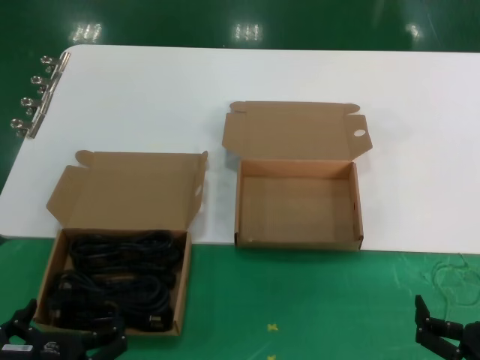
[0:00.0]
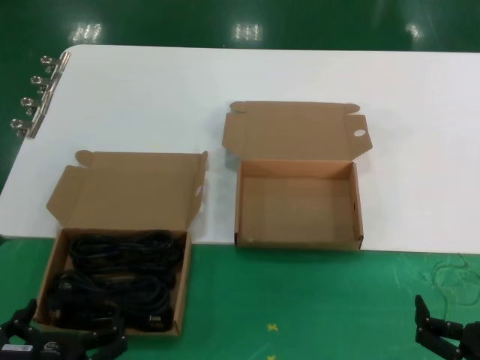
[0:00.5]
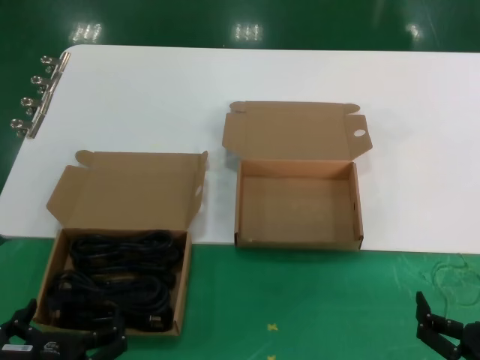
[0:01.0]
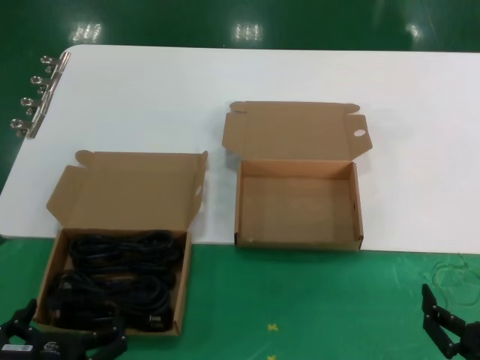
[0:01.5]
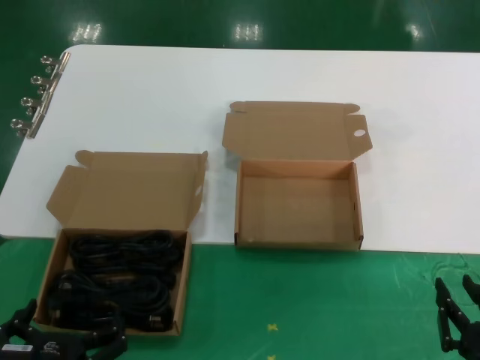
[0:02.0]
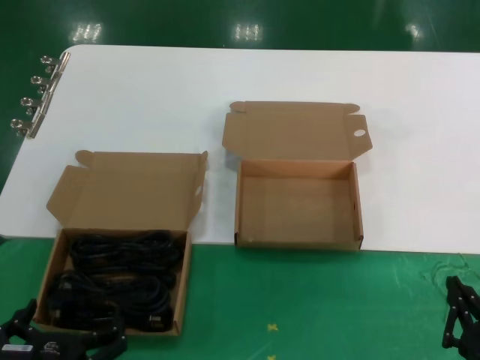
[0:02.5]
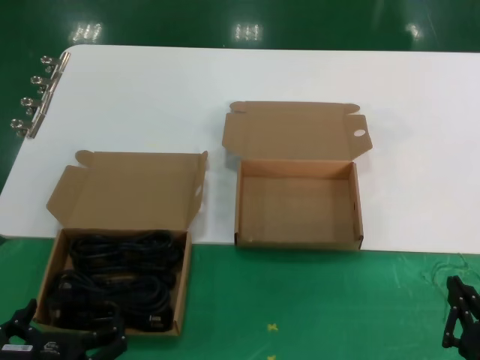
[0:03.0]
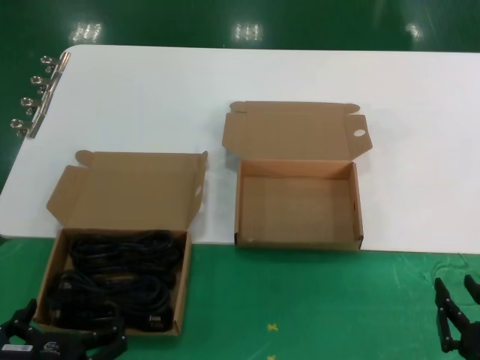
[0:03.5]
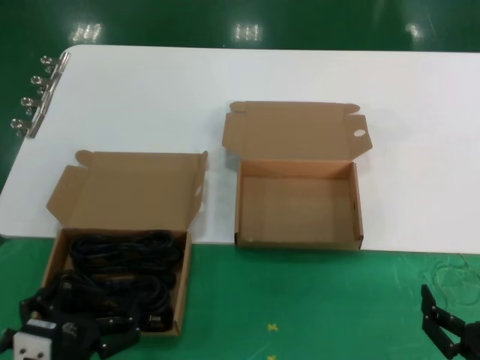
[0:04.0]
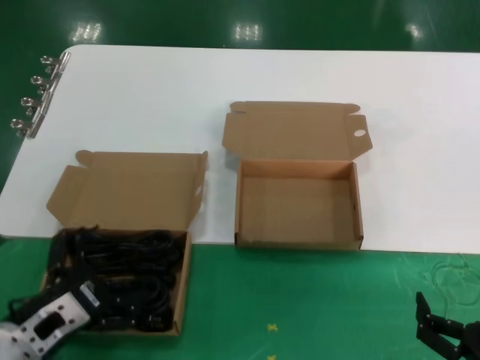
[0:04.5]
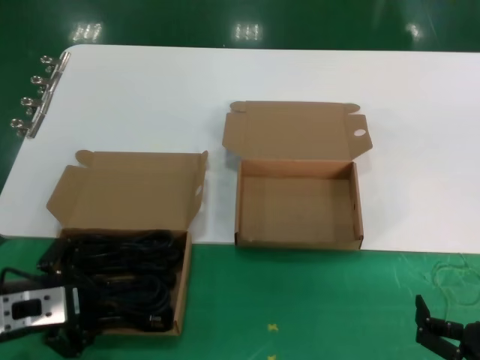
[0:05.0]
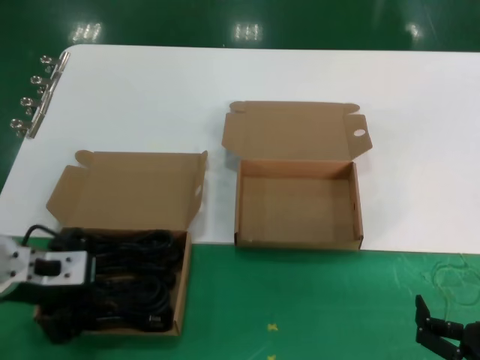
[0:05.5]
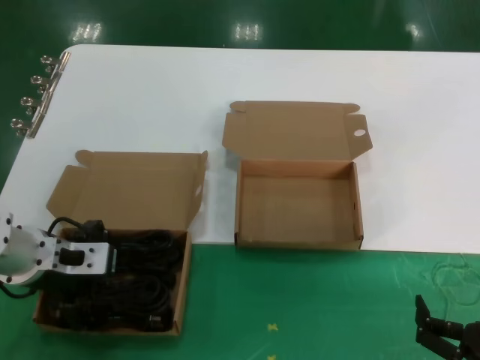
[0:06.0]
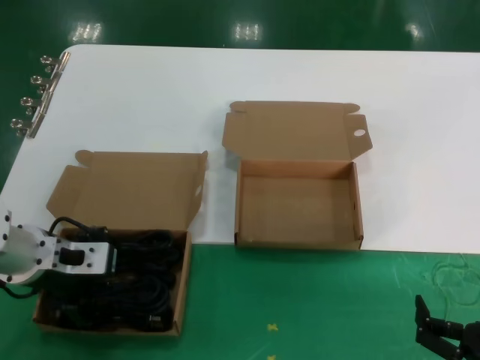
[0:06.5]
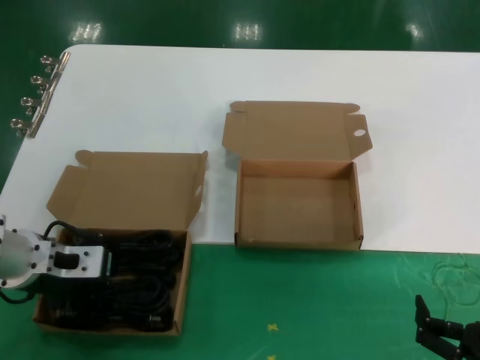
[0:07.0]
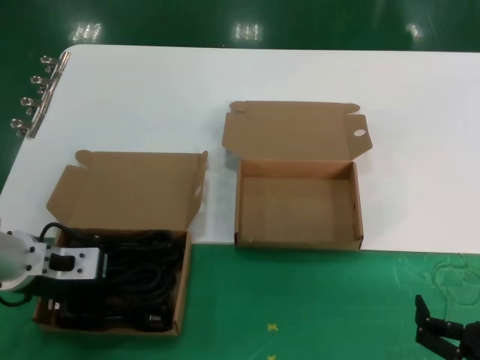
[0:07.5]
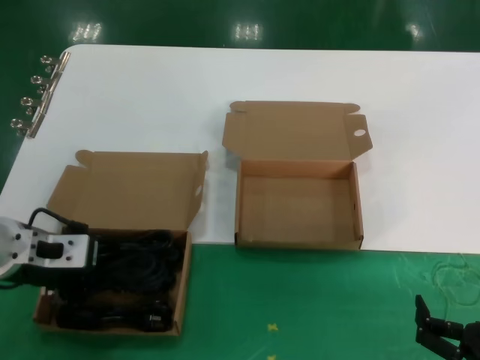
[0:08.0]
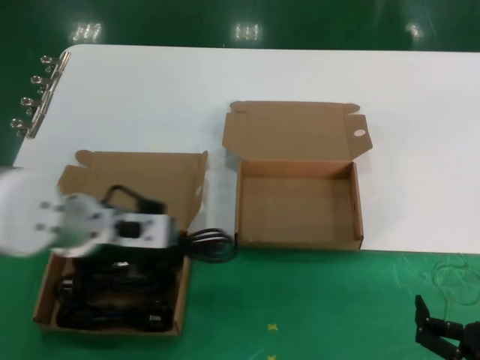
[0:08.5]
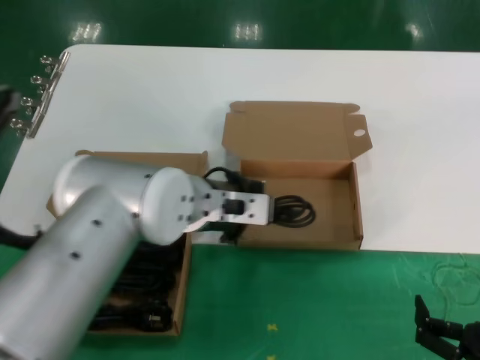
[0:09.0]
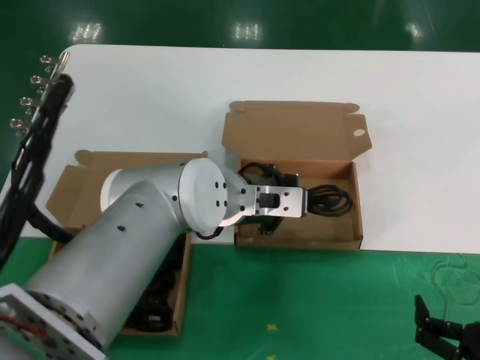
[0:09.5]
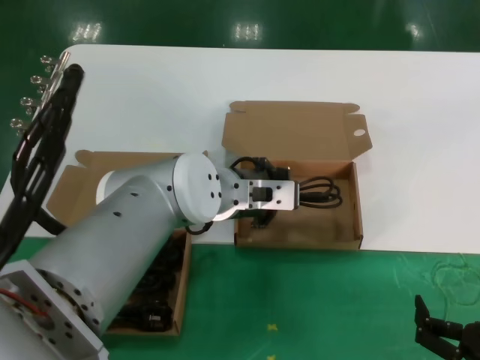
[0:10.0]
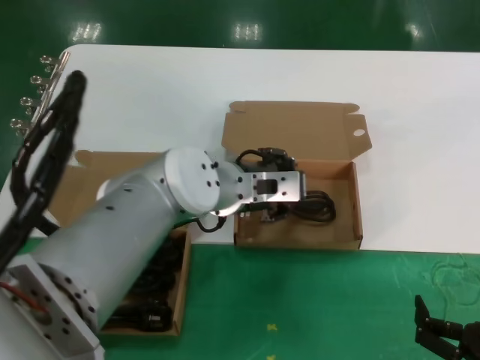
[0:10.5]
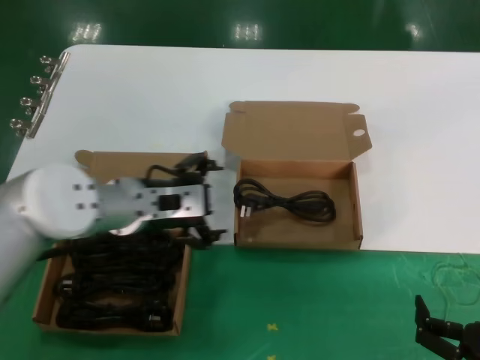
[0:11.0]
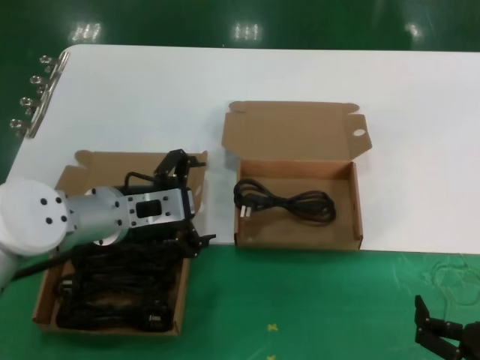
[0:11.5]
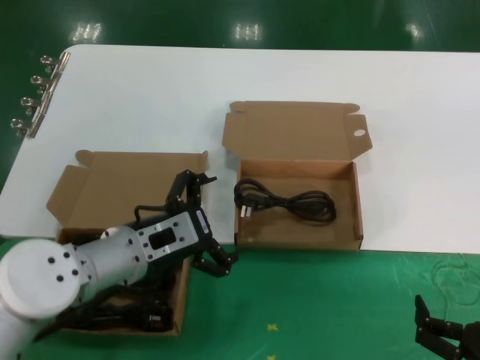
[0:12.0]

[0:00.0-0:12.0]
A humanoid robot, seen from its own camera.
Task of the whole recording: take the parts from the box containing them and put them into an empty box.
Step, 0:00.0 to 0:08.0: Grasp the data cable.
Step, 0:08.5 to 0:10.5: Place the data cable in the another box.
0:00.0 to 0:02.0: Neither hand changes place.
0:02.0 to 0:04.0: The hands make only small movements.
0:04.0 to 0:06.0: The left hand heads upward and forward, covering about 25 cm.
0:06.0 to 0:08.0: The hands make only small movements.
0:08.0 to 0:10.0: The left hand moves to the right, approximately 25 cm.
0:10.0 to 0:12.0: The left hand is displaced to the left, backward and downward by roughly 15 cm.

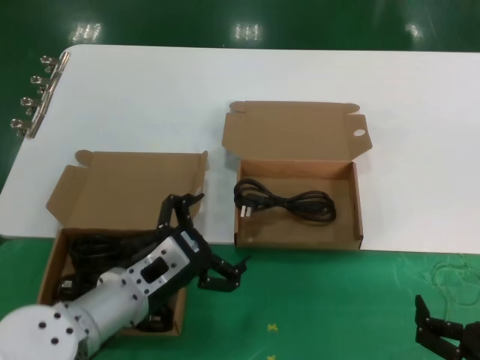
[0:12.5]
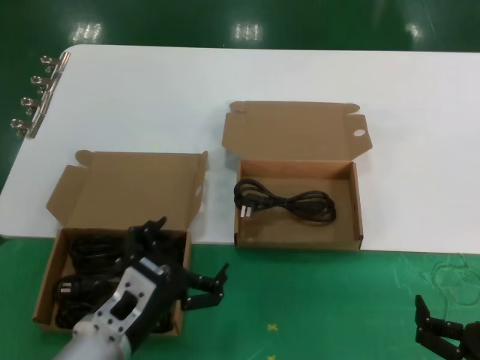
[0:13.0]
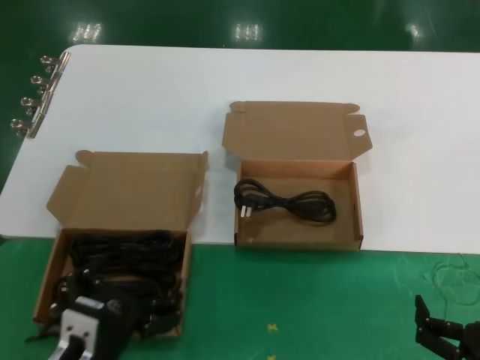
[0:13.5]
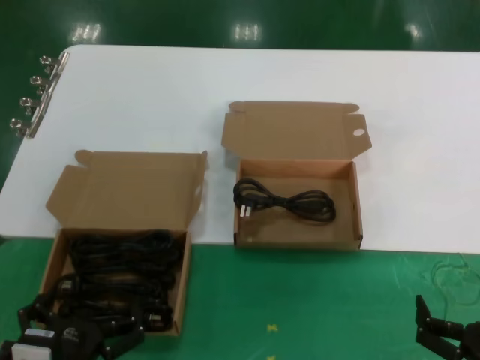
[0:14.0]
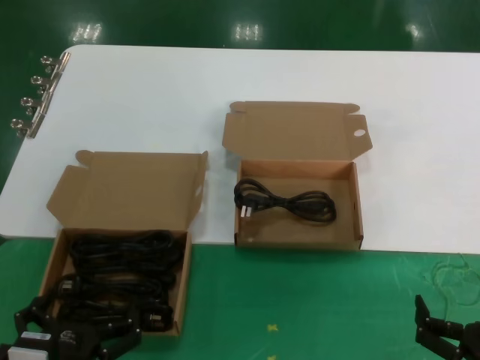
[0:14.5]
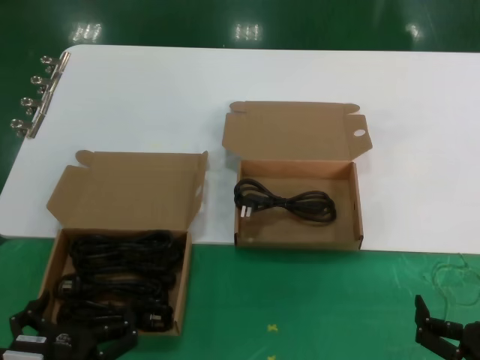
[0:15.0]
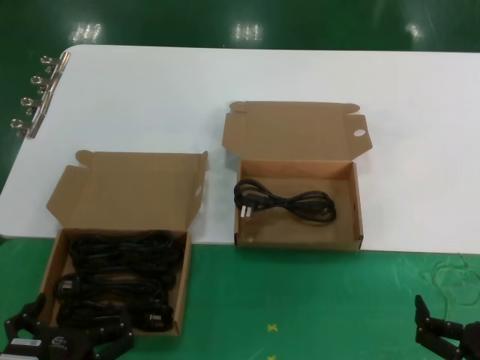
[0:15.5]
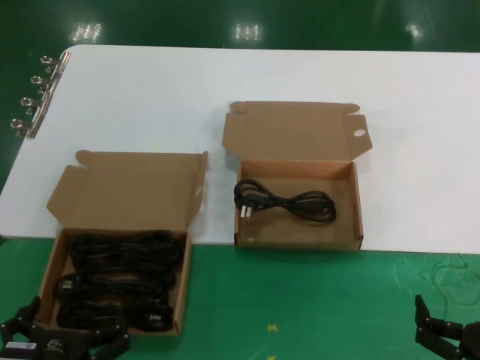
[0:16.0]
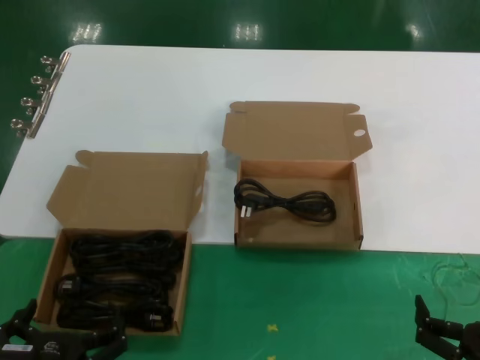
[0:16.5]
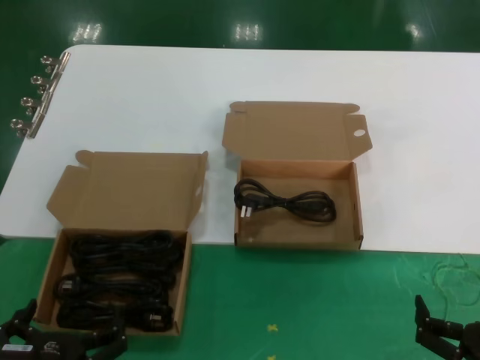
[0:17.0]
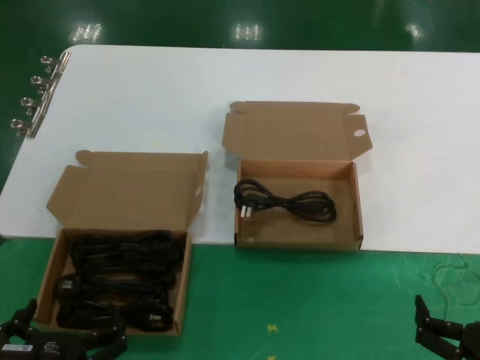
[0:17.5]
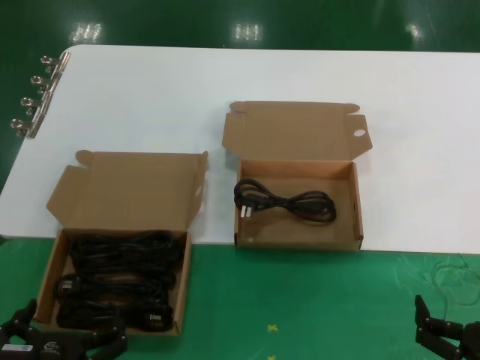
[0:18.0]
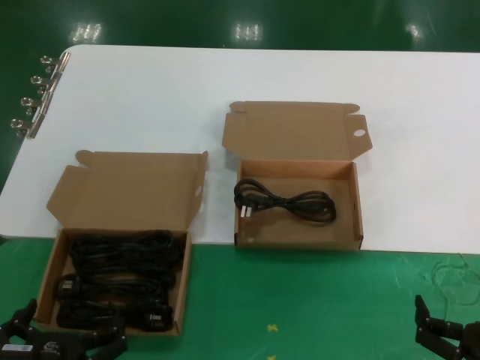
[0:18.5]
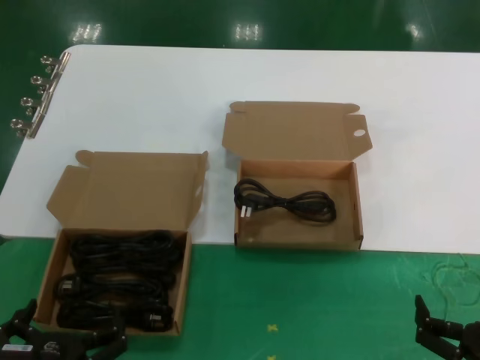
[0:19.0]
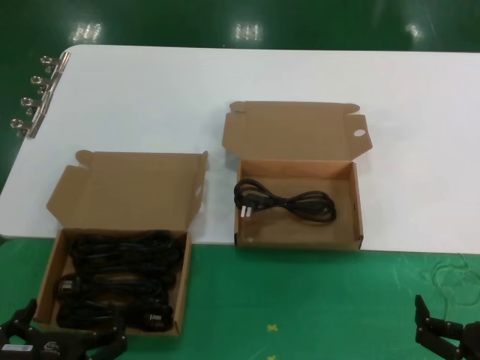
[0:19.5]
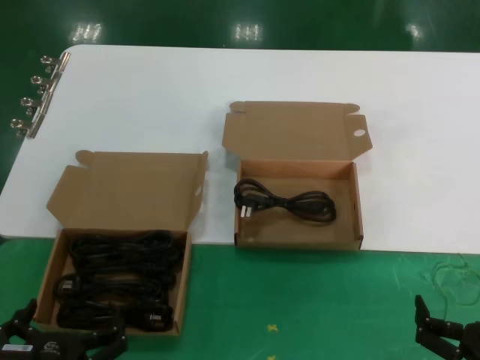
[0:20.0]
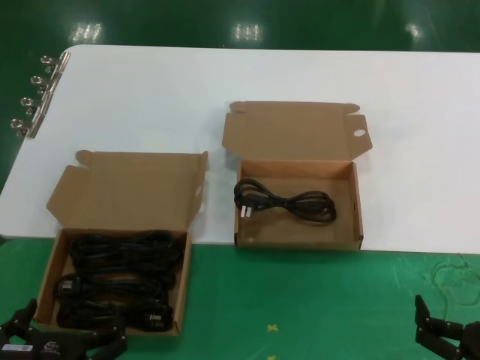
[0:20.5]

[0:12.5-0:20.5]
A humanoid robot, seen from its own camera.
Task of the whole recording: take the parts from the box containing them and put them into an empty box.
0:12.5 to 0:14.5: The left hand shifts some 15 cm backward and downward.
0:14.5 to 0:16.5: The hands make only small movements.
0:16.5 to 0:20.5: The two hands keep their place.
